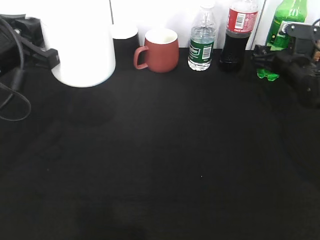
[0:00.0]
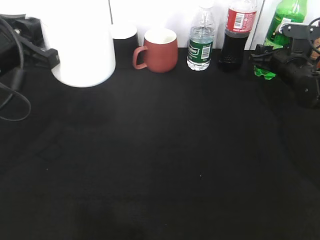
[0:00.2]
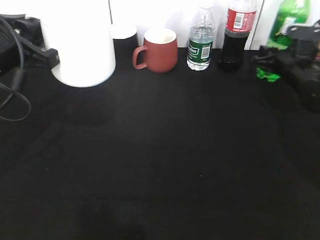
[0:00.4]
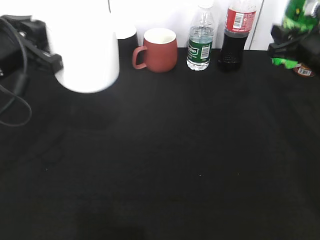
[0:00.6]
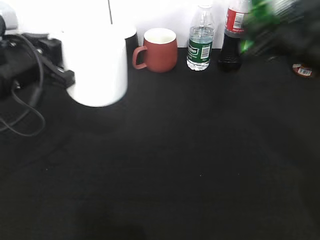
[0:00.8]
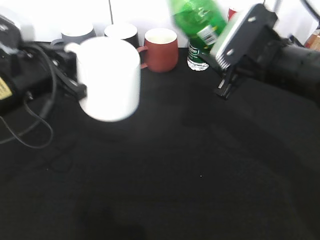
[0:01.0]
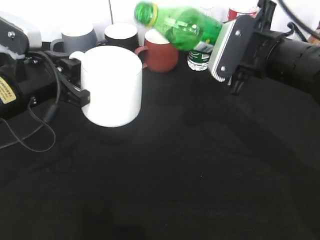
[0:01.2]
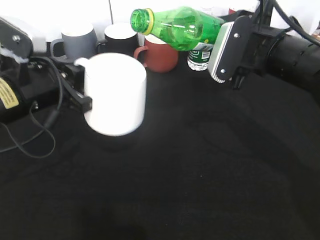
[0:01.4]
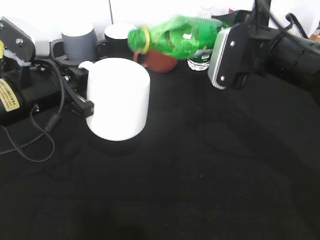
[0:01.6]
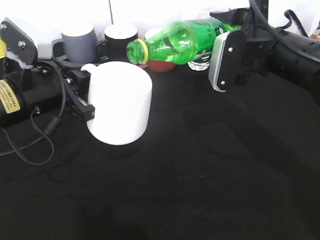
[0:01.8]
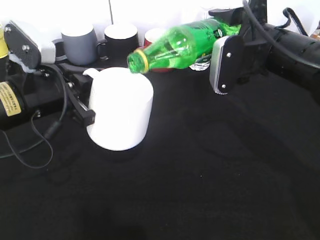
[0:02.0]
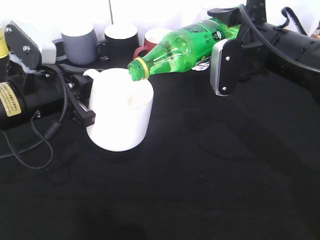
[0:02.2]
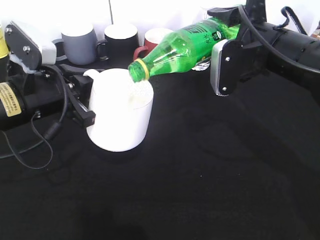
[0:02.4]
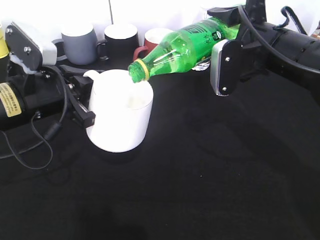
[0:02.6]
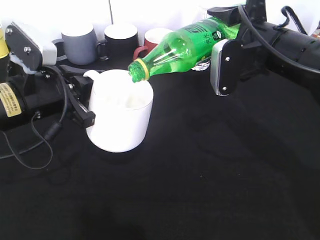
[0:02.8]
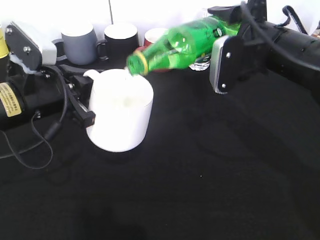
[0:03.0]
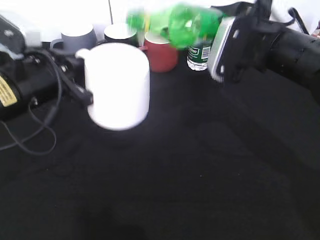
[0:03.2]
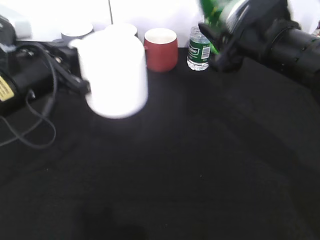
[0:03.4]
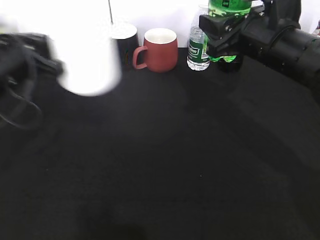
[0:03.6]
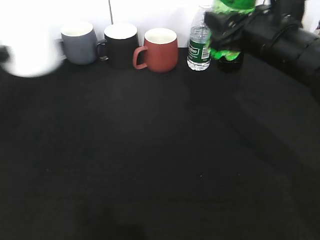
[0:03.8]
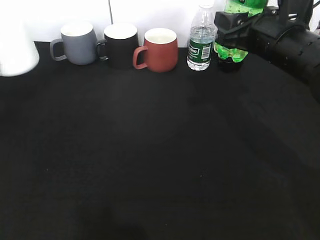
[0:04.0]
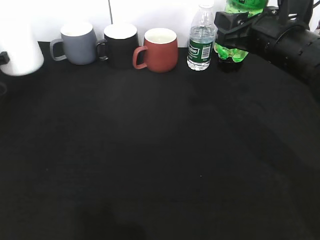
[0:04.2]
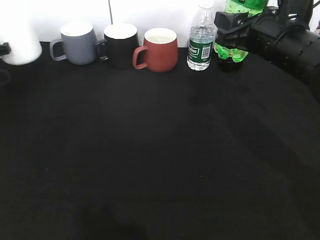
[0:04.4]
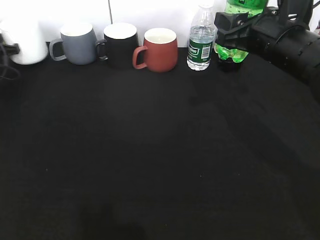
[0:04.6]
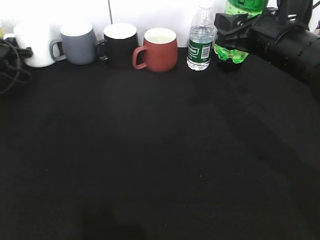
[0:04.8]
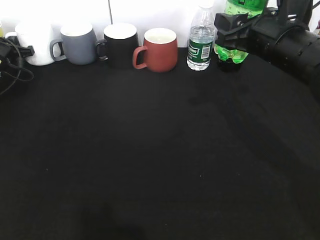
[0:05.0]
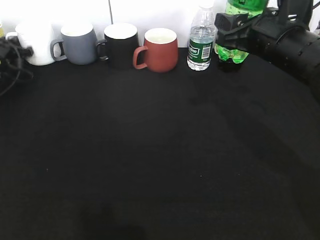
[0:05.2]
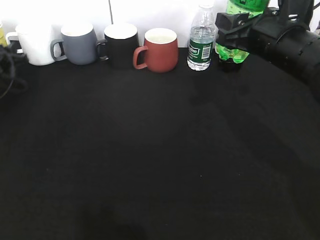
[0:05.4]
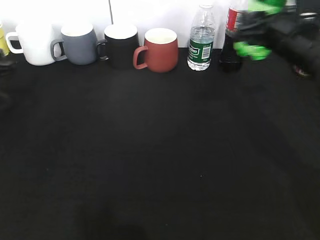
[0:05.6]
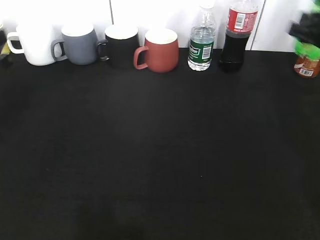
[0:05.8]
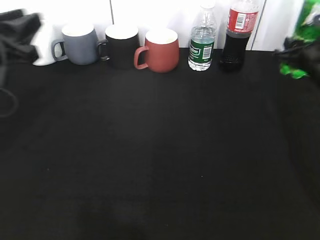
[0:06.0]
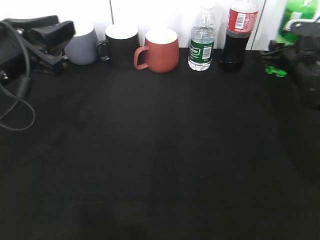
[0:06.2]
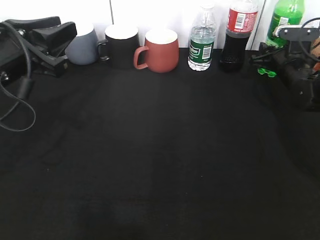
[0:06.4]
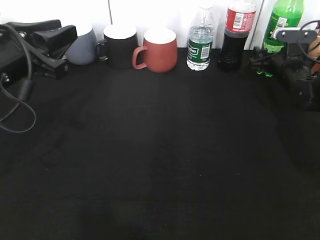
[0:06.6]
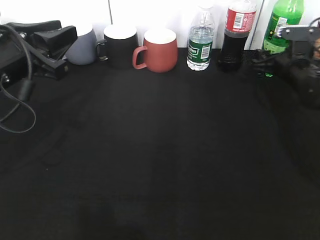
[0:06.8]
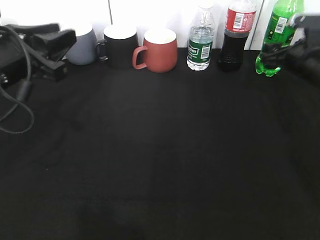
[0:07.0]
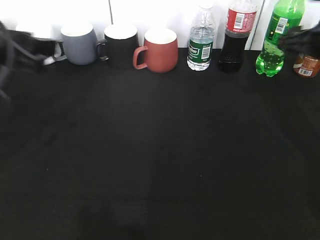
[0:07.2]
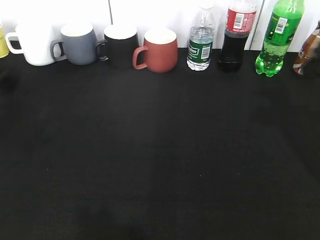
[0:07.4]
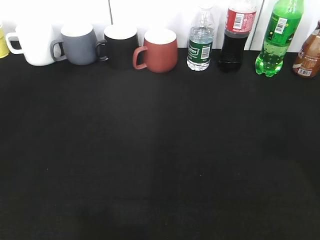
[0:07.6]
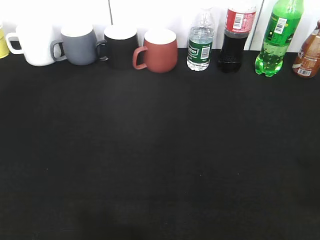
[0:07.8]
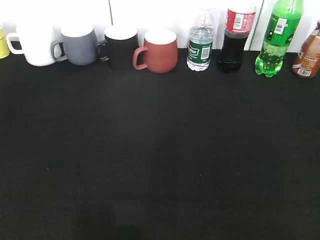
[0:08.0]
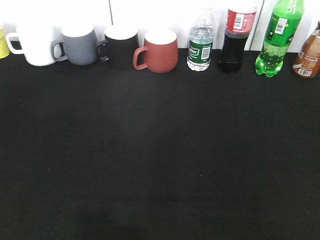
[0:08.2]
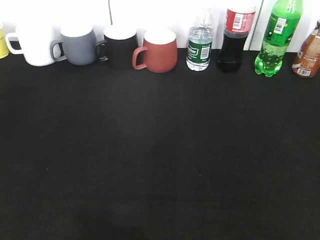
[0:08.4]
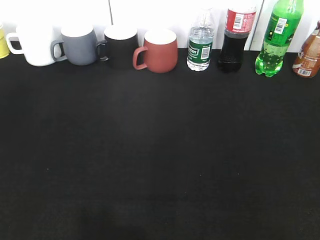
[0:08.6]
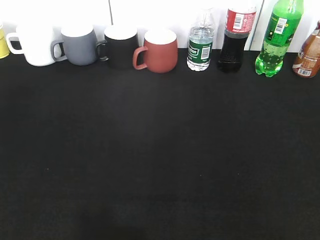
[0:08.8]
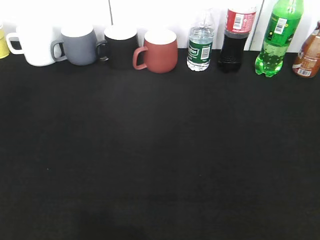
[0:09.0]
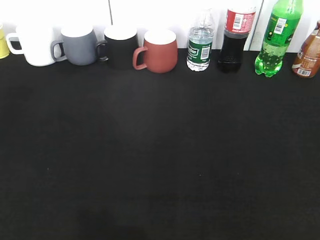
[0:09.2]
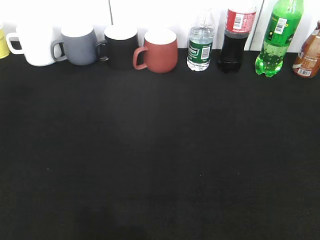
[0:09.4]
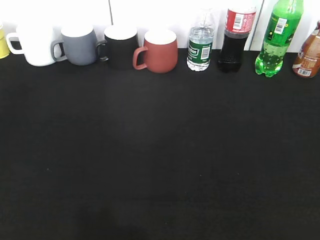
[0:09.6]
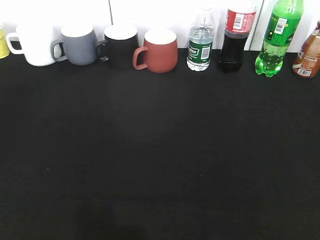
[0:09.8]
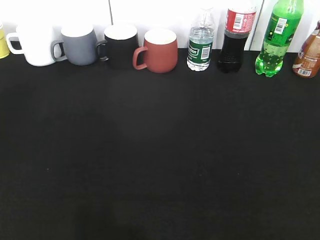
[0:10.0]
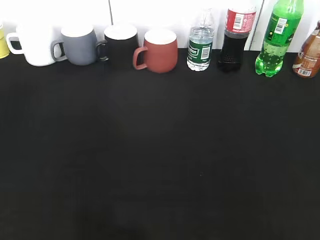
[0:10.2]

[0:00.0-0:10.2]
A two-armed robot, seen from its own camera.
Step, 0:00.4 to 0:03.0: Pour the sprite from bottle to cup with right gripper.
Step, 0:03.4 to 0:06.6: Place the sprite bottle on the table with right gripper.
0:00.0 to 0:01.4: The right gripper is displaced backward, upward and to the left by approximately 20 cm, and closes its fingers, while the left gripper moves approximately 5 cm.
0:03.0 to 0:04.4: The left gripper moves to the left and forward, some 30 cm.
0:04.4 to 0:05.8: The left gripper heads backward, to the right and upward, covering some 20 cm, and opens, while the right gripper shifts some 10 cm to the right.
0:05.8 to 0:07.2: The right gripper travels downward and back again, some 10 cm each way, and opens up. Meanwhile the left gripper shifts some 10 cm to the right, upward and backward.
0:07.2 to 0:08.8: Both grippers move backward, about 30 cm.

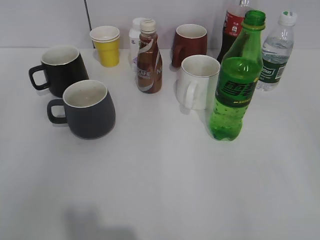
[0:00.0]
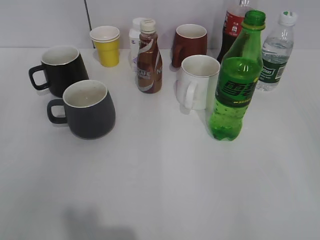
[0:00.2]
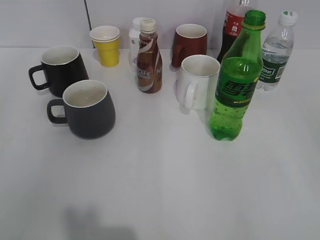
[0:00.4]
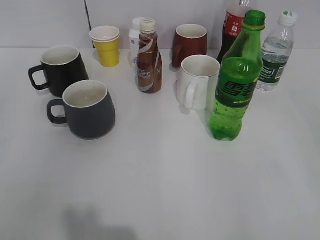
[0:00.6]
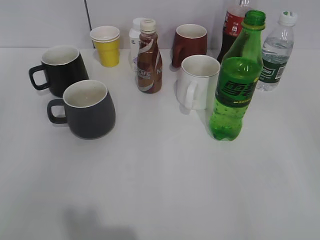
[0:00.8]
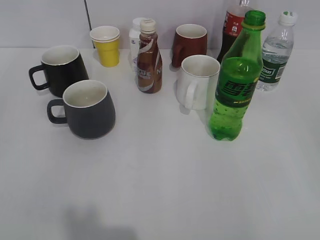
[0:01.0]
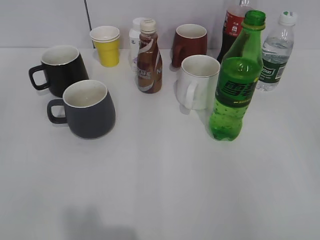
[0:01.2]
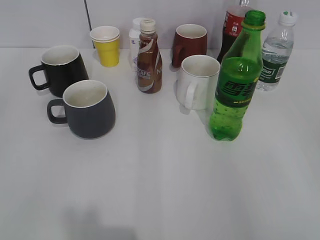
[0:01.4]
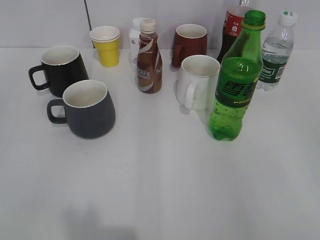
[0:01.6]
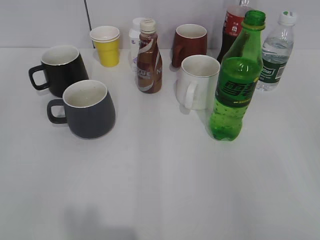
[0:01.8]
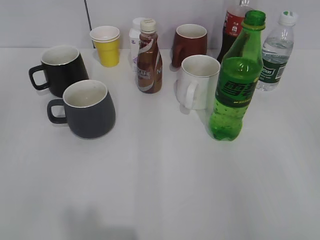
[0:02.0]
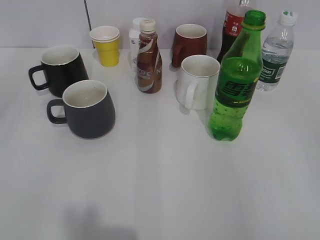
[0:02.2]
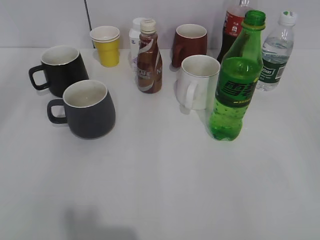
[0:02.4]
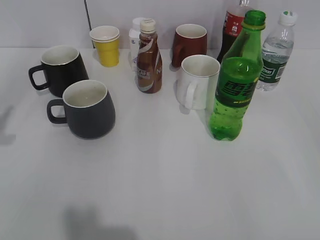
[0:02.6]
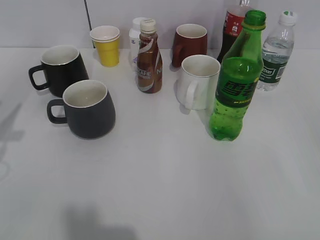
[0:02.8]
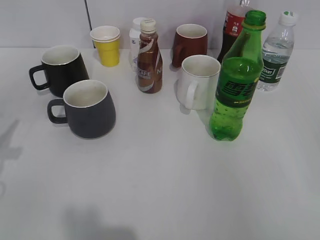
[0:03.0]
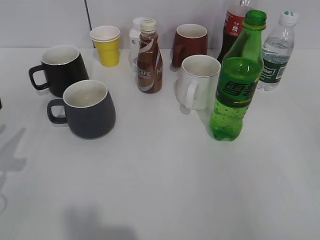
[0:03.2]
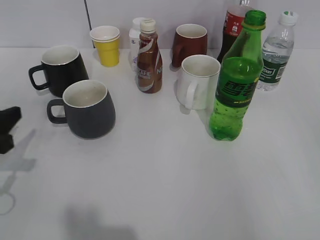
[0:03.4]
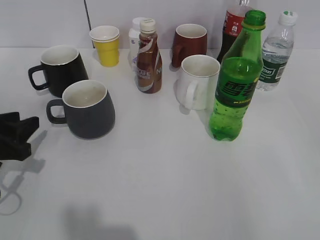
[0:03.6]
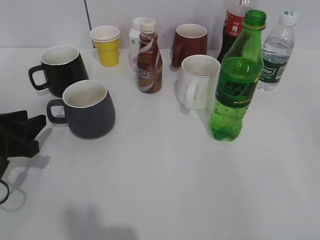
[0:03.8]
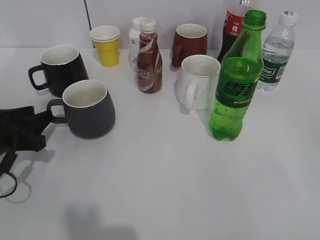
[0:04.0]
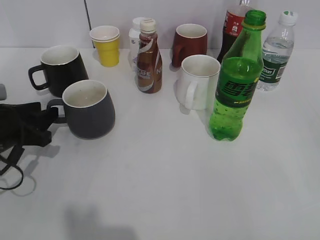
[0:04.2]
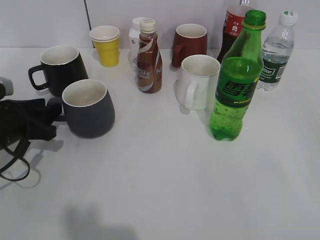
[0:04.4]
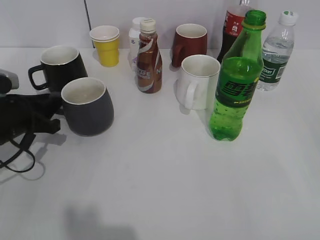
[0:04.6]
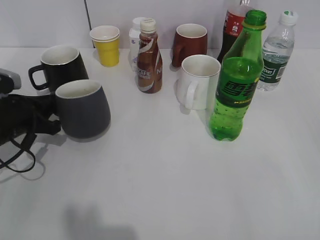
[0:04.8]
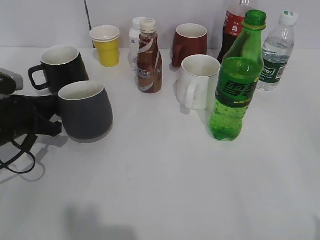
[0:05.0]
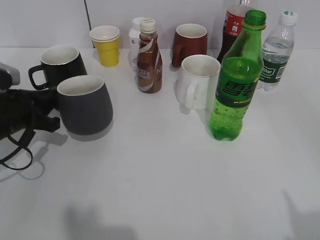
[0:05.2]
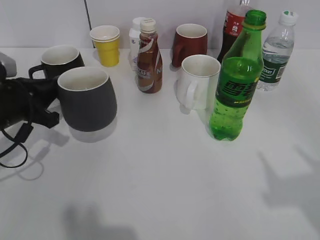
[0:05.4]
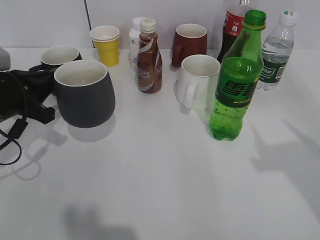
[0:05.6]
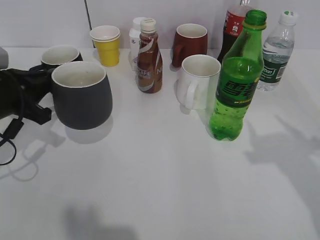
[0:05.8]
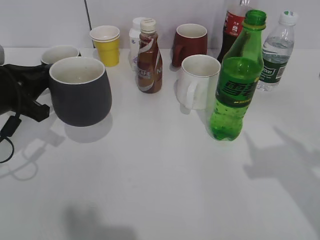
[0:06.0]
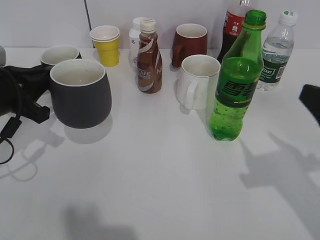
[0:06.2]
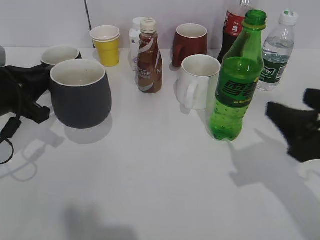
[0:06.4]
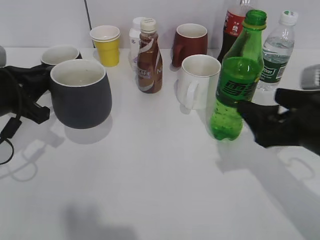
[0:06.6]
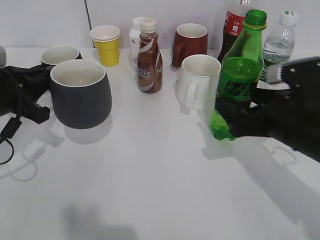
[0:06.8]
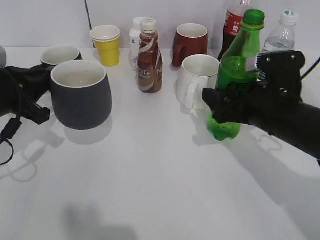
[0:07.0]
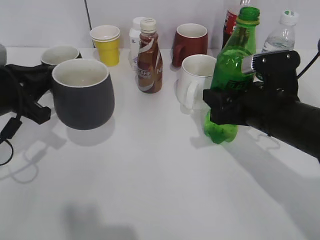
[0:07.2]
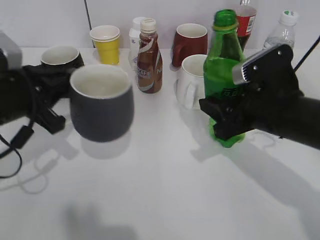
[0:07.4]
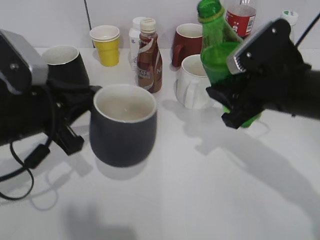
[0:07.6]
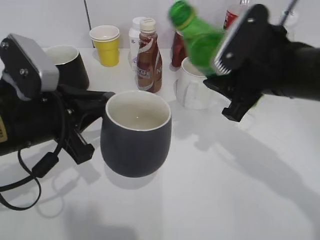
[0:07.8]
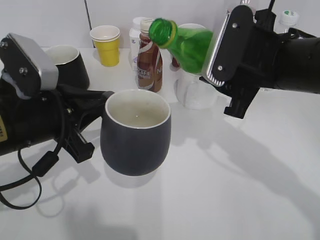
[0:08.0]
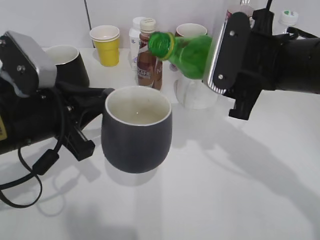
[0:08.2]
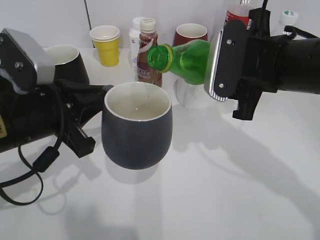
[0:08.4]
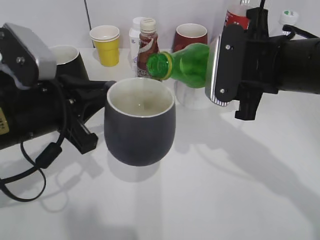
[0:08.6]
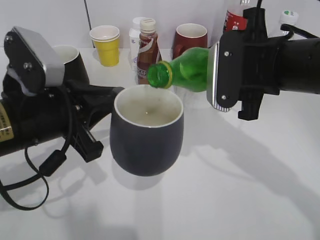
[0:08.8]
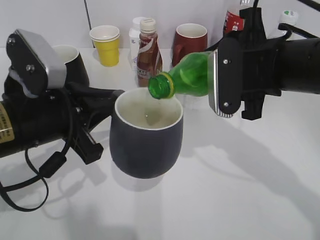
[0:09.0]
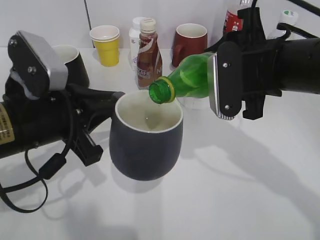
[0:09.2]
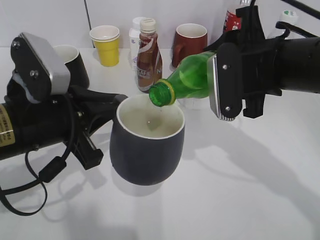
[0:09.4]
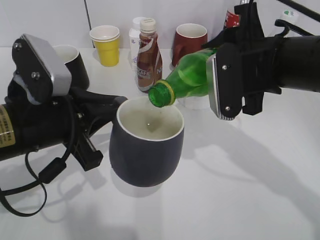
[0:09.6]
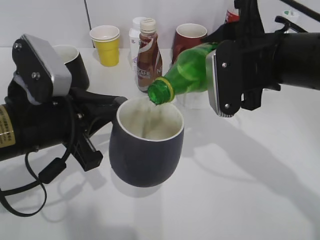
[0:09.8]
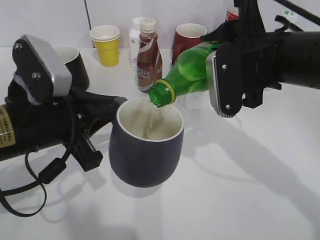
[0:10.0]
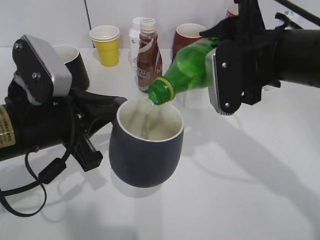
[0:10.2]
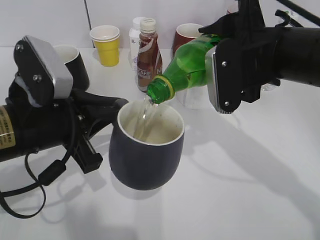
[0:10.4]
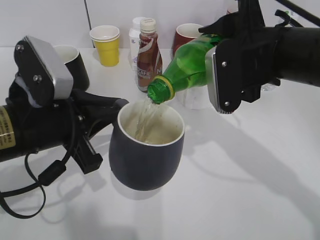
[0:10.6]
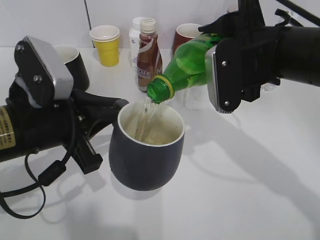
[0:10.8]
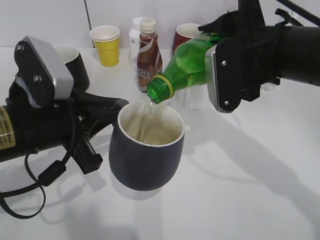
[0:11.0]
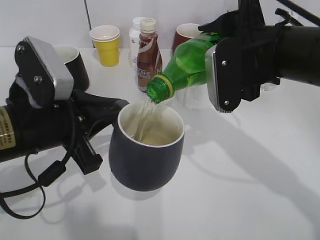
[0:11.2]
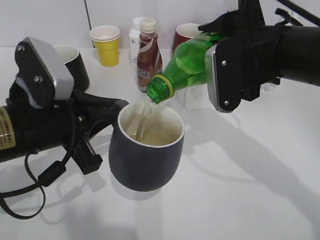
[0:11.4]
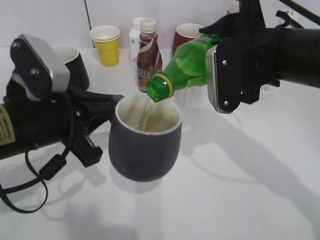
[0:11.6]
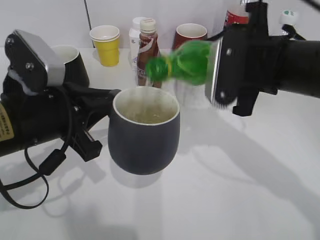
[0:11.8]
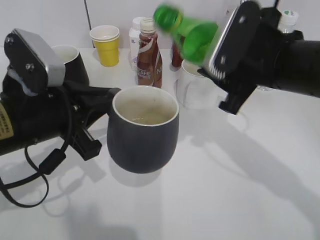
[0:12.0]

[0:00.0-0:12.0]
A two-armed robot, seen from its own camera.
Step, 0:02.0 to 0:04.6: Grasp the grey cup with left gripper.
Step, 0:05.0 to 0:06.0: Lift the grey cup with left gripper.
Step, 0:06.2 to 0:07.0: Grasp the bottle with sprite with right gripper.
Step, 0:07.4 to 0:11.8: Pour the sprite from bottle to cup with right gripper.
0:03.0 to 0:04.4: The left gripper goes approximately 10 cm downward and forward.
0:04.4 to 0:06.0: The right gripper is displaced forward by roughly 15 cm. The left gripper heads upward, covering approximately 5 cm, and closes its fingers.
0:06.0 to 0:07.6: The left gripper goes roughly 5 cm to the right; the right gripper moves forward and to the left, approximately 15 cm, and closes.
0:09.0 to 0:10.4: There are only small adjustments of the grippers.
